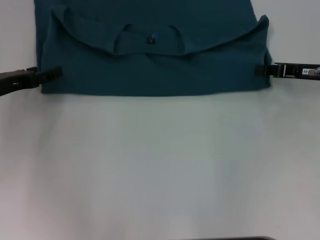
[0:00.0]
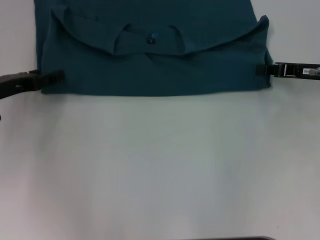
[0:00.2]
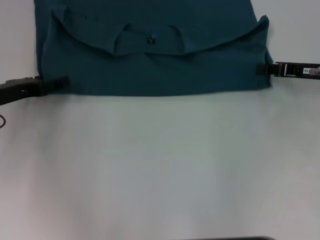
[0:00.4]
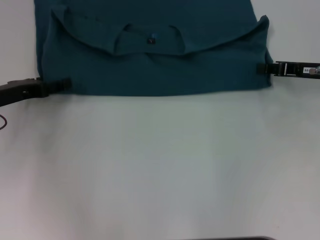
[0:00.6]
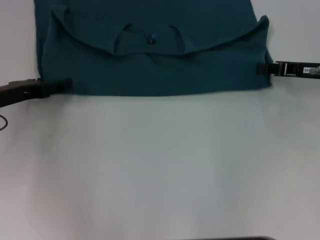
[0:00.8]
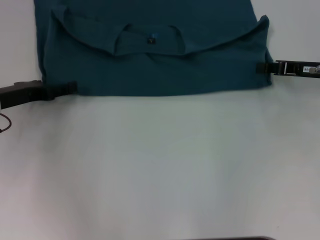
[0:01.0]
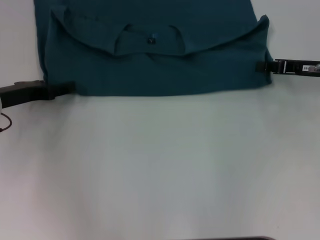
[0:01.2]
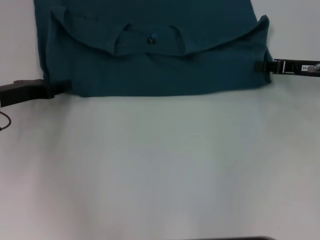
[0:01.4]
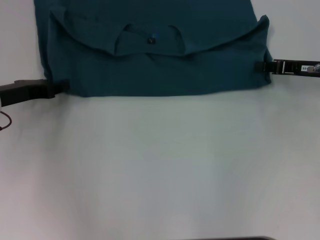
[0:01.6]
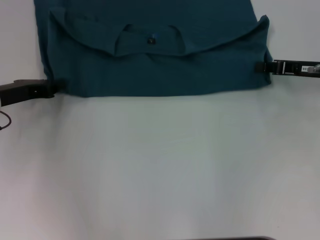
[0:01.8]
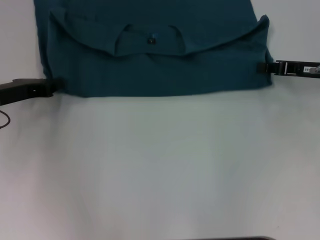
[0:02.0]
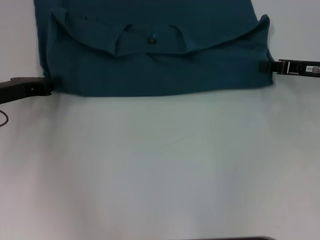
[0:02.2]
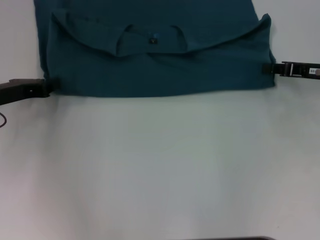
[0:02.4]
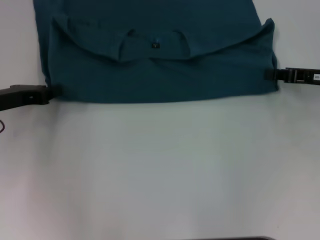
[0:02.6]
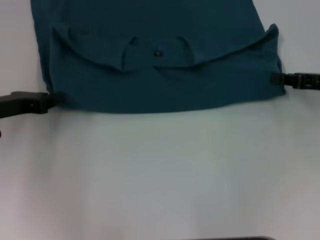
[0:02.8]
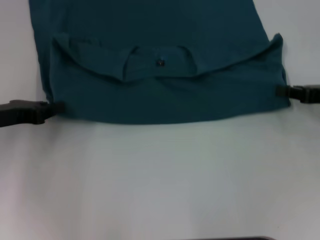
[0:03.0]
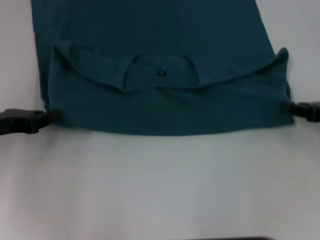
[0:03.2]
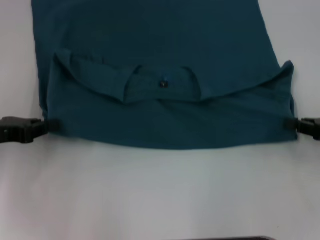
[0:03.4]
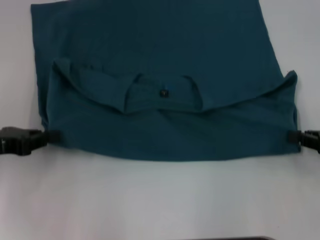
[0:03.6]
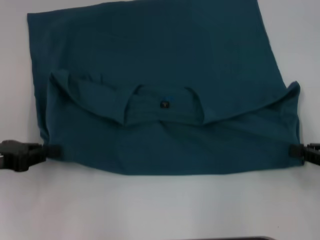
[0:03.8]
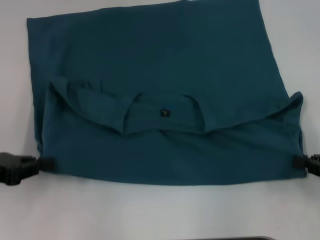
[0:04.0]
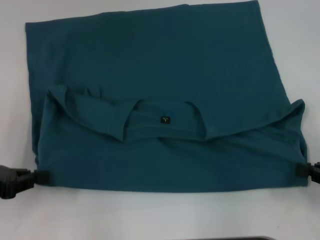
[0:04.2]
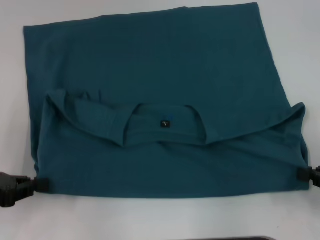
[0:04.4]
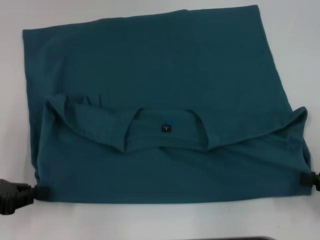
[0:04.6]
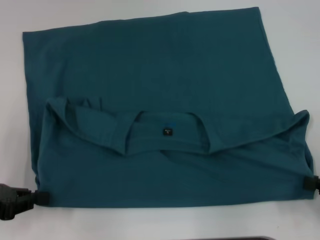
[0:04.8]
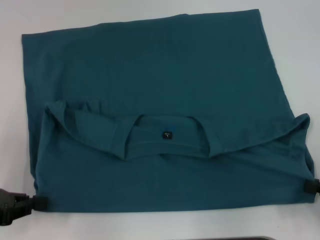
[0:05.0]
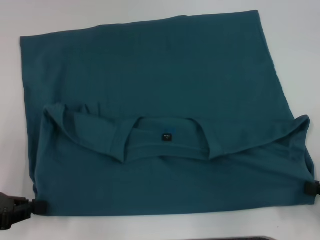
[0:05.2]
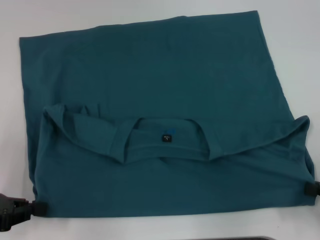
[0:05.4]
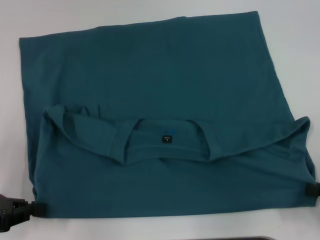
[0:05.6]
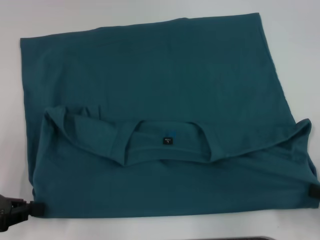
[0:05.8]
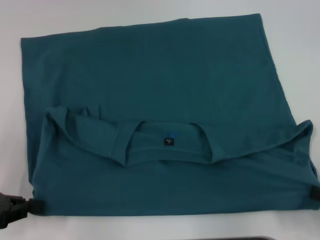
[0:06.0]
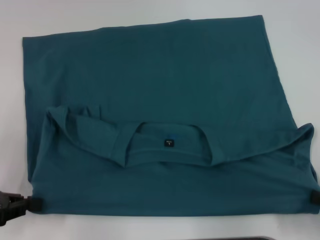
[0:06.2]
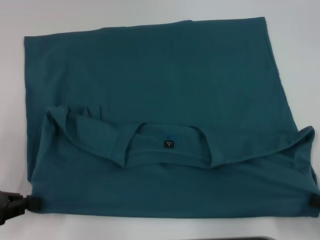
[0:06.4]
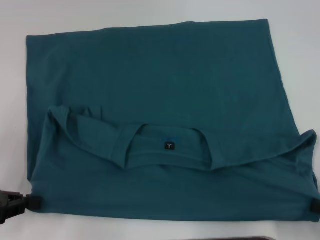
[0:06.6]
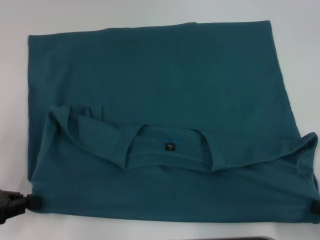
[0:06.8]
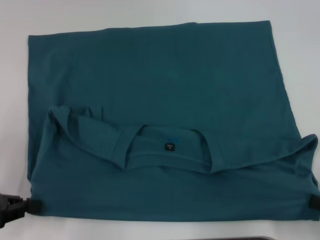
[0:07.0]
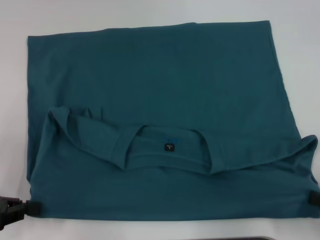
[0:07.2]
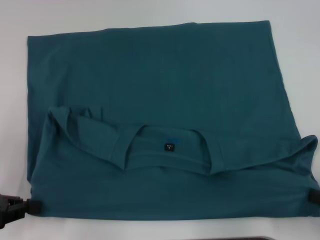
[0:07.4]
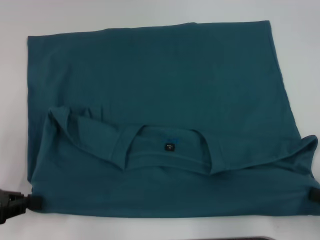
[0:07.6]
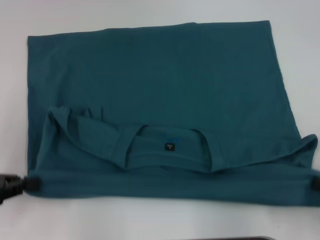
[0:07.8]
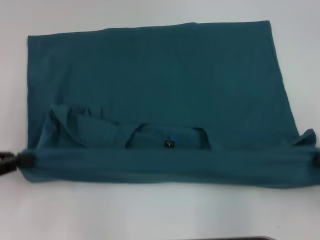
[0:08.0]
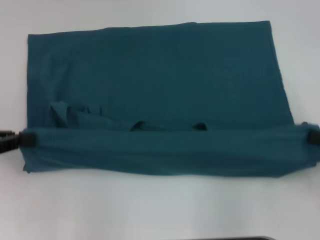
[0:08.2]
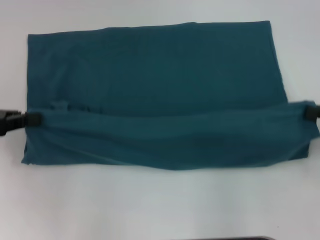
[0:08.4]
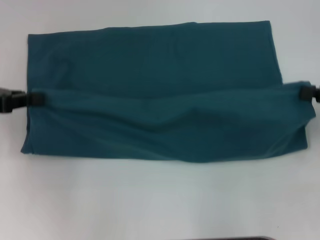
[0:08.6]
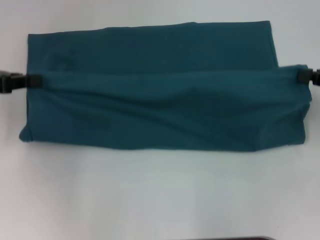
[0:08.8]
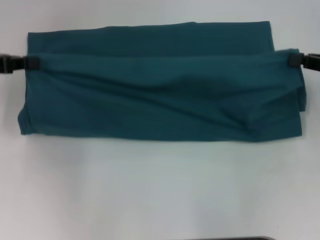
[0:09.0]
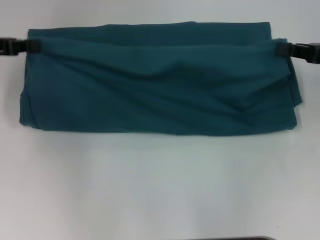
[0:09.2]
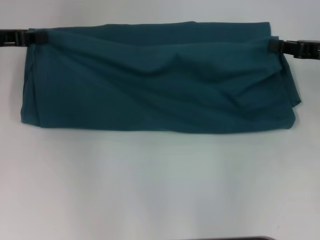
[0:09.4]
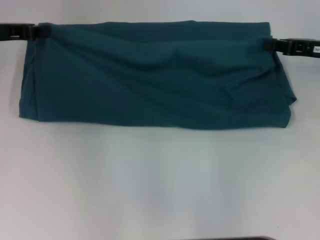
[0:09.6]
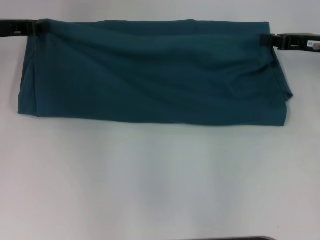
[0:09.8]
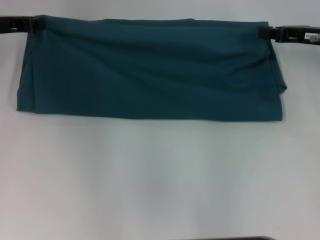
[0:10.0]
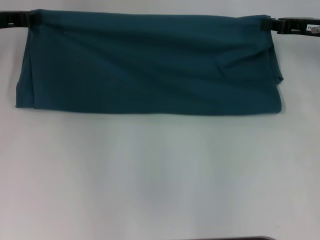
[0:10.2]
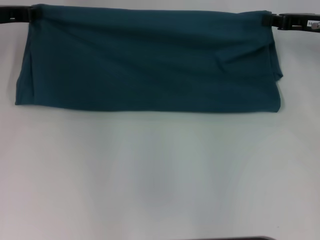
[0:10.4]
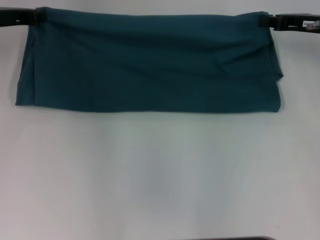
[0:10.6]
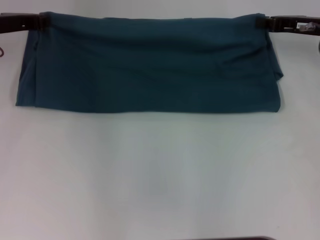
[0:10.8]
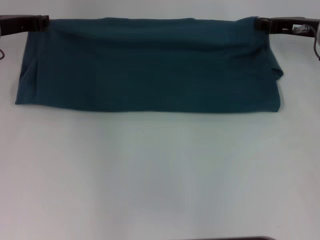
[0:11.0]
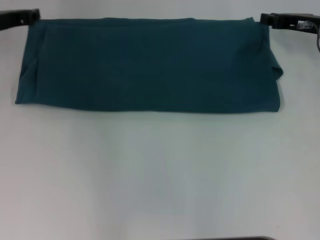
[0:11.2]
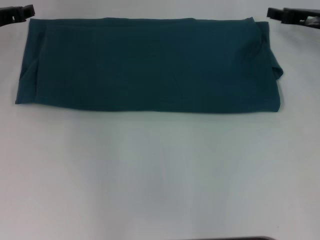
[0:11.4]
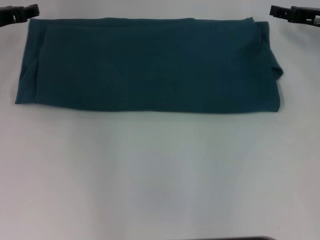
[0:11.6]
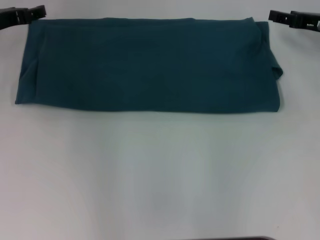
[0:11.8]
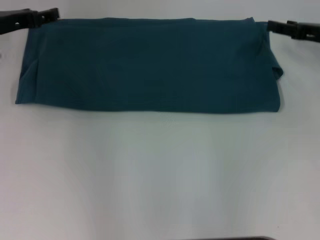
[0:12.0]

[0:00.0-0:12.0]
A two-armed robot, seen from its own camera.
Step, 0:00.0 to 0:06.8: Pull the clothes with your left hand.
Step, 0:00.0 to 0:06.8: Pull the clothes with your right hand.
Step, 0:07.0 to 0:11.4: Fold the clothes to the left.
Step, 0:07.0 to 0:11.4: Fold the clothes to the right.
0:00.0 to 0:01.6: The left gripper closes.
0:01.6 to 0:03.0: The left gripper closes. Meanwhile the right gripper heads backward, covering some 5 cm.
0:03.0 to 0:04.4: The two grippers go roughly 10 cm backward.
0:04.4 to 0:06.0: There are only small adjustments of the grippers.
0:06.0 to 0:07.6: The grippers make only small movements.
0:07.6 to 0:09.0: Both grippers travel together forward and upward, approximately 20 cm.
0:09.0 to 0:10.4: Both grippers travel together forward, some 10 cm.
0:10.4 to 0:12.0: The left gripper opens up. Meanwhile the right gripper opens.

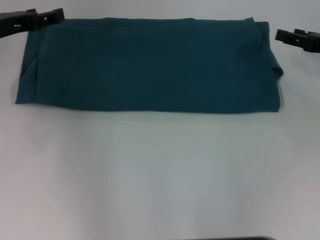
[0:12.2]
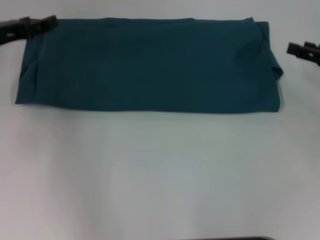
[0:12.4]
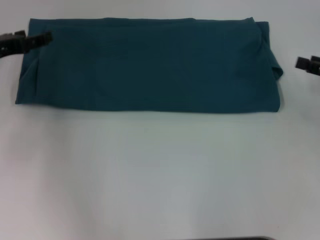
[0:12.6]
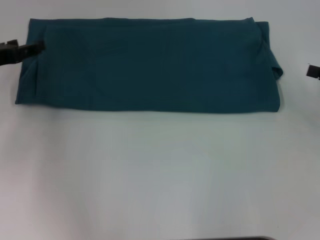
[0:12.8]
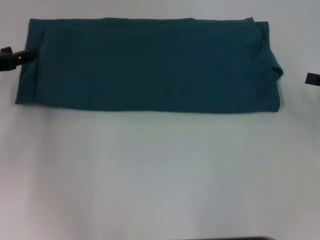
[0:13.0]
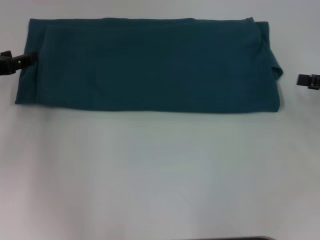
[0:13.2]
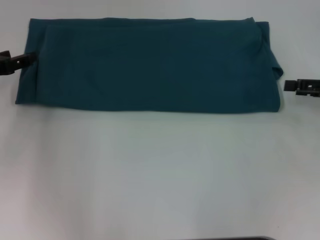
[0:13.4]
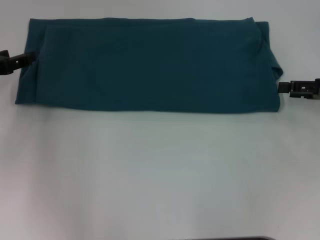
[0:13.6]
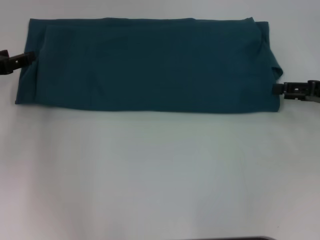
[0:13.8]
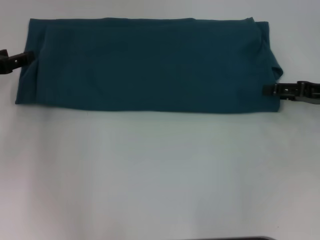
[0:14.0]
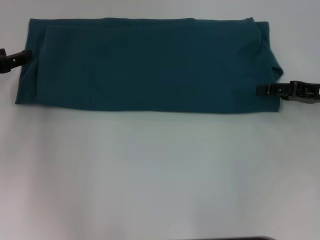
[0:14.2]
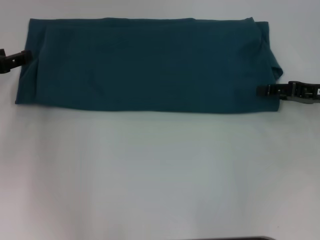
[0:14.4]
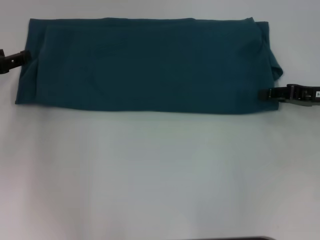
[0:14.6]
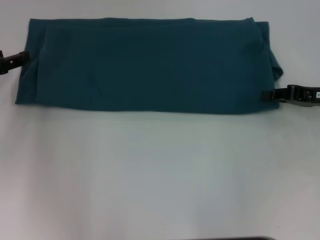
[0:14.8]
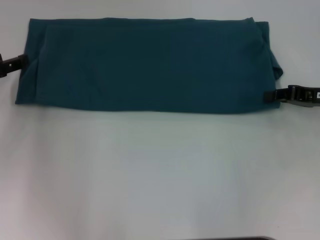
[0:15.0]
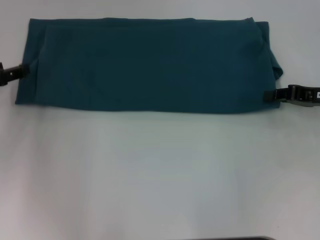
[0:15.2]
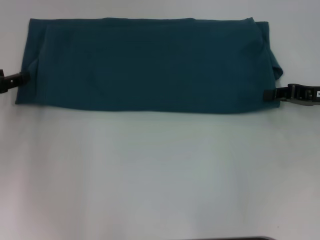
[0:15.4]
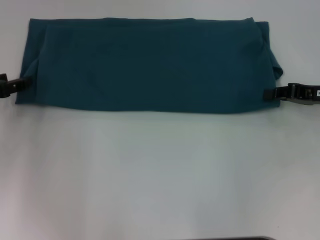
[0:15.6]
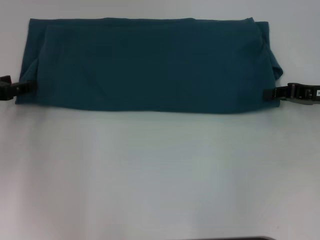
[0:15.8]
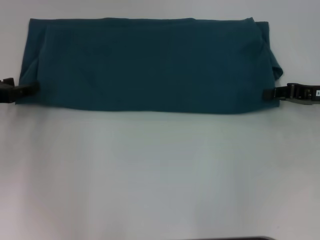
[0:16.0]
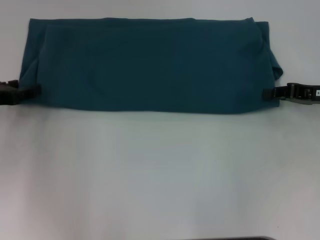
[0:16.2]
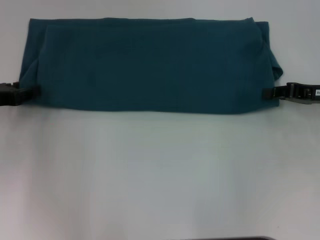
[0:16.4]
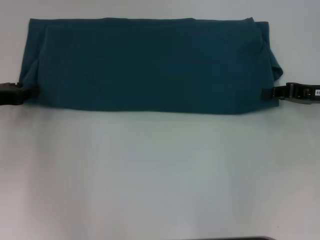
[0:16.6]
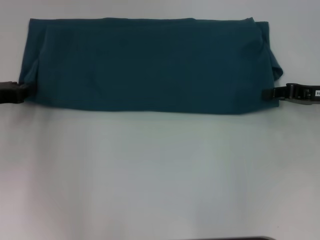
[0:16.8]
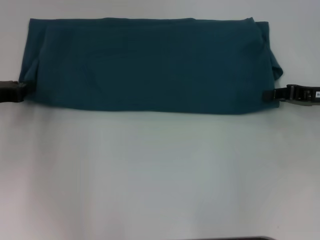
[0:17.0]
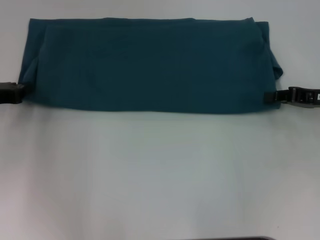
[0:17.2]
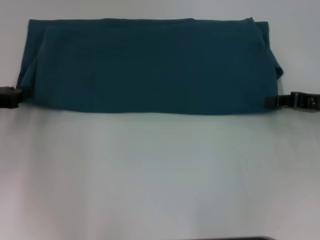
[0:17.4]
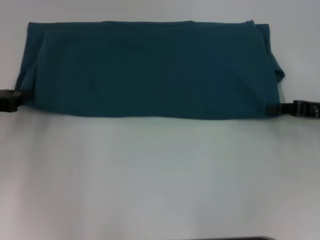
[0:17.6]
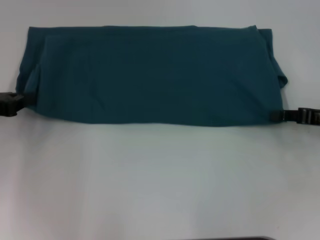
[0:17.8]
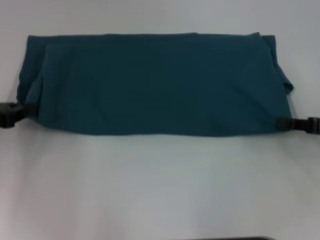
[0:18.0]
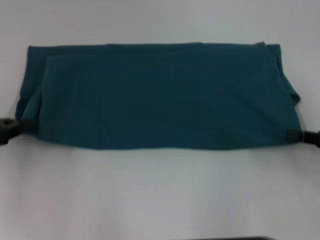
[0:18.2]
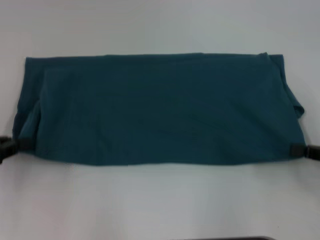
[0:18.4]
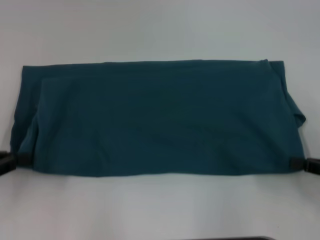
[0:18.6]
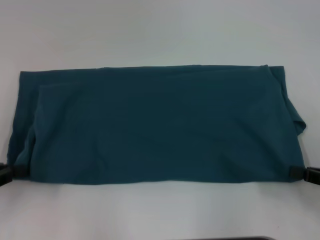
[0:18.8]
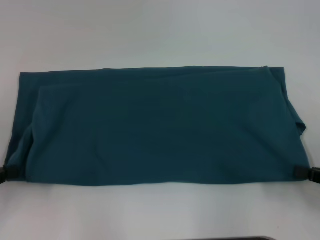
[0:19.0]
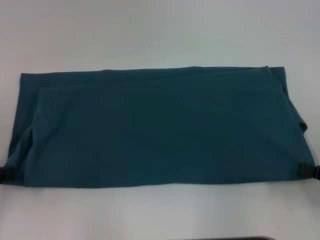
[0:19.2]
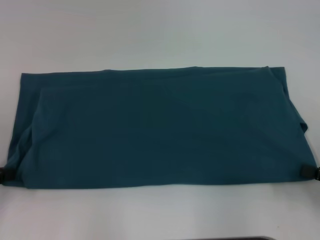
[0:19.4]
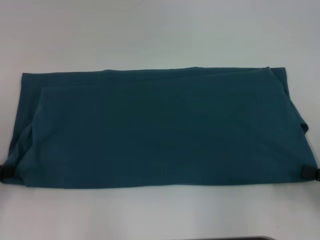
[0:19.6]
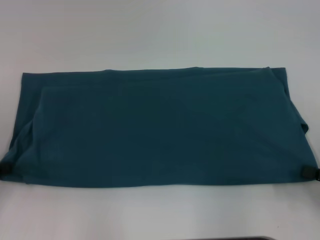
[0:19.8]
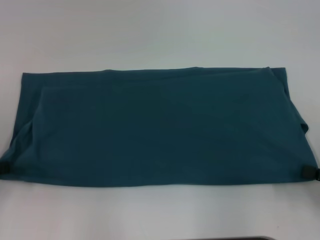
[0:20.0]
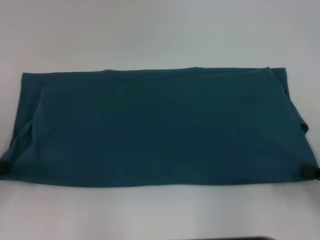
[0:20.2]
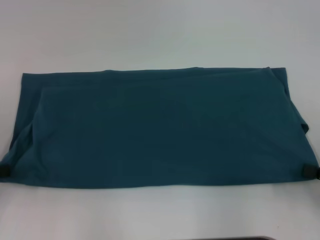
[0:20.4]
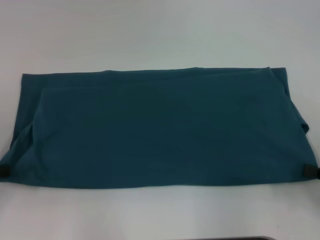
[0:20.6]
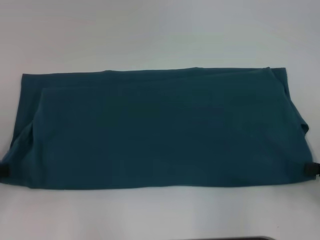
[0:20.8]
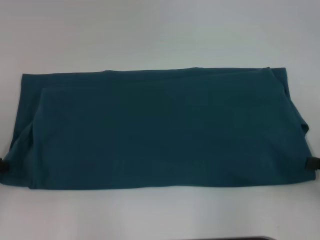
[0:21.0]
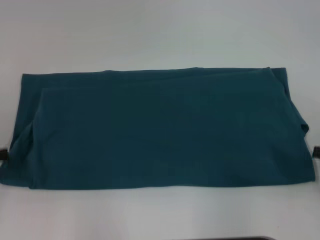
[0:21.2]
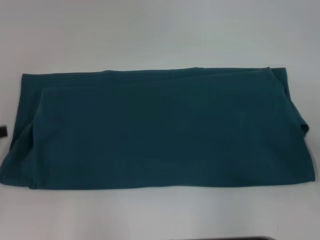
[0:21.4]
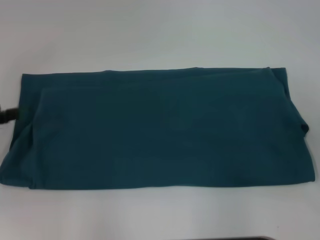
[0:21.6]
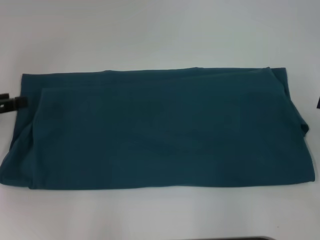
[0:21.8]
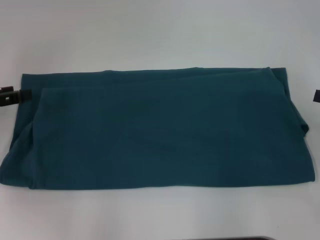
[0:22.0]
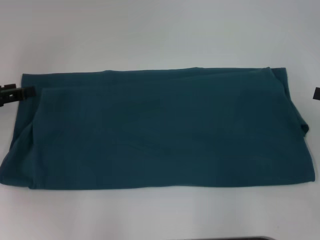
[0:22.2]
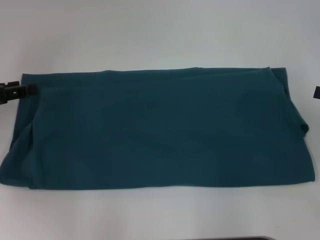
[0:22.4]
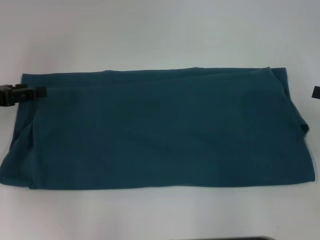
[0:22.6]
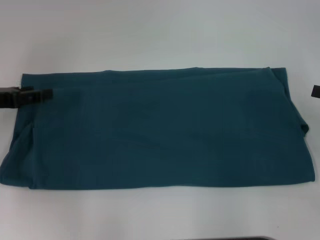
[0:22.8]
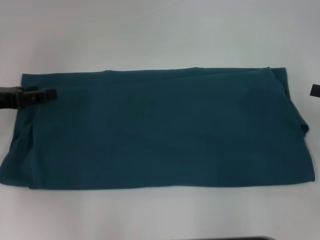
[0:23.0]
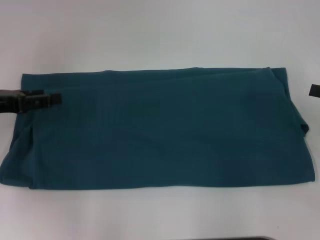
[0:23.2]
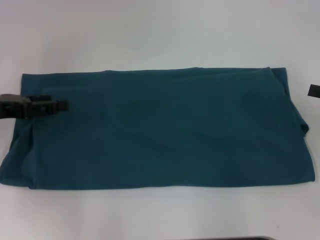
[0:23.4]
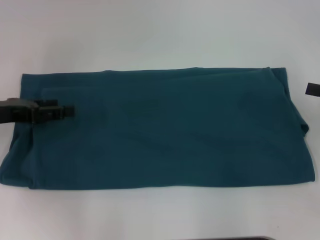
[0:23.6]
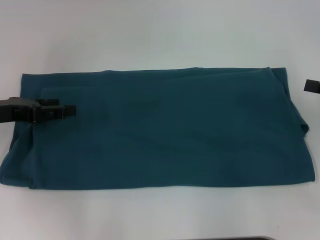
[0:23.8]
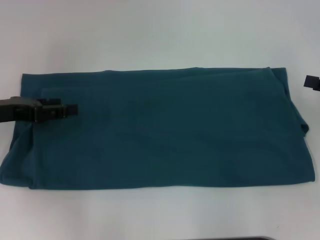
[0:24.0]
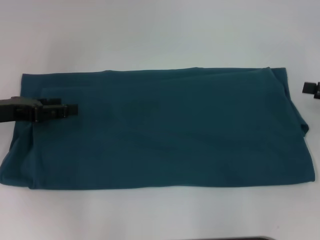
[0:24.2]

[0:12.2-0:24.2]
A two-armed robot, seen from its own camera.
Step, 0:12.2 to 0:19.2: Pull the clothes with your left hand.
Step, 0:12.2 to 0:19.2: Pull the clothes with your right hand.
0:12.2 to 0:13.8: The left gripper is displaced backward by approximately 5 cm.
0:13.8 to 0:15.2: The right gripper closes.
0:15.2 to 0:16.6: The grippers move only a little.
0:16.6 to 0:18.2: The right gripper heads backward, covering approximately 10 cm. The left gripper heads backward, covering roughly 5 cm, and closes.
0:18.2 to 0:19.8: The right gripper goes approximately 5 cm backward. The left gripper changes place by approximately 5 cm.
0:19.8 to 0:21.2: The grippers stay close to where they were, moving slightly.
0:21.2 to 0:22.6: The left gripper moves forward, about 10 cm, and opens.
0:22.6 to 0:24.2: There are only small adjustments of the grippers.
